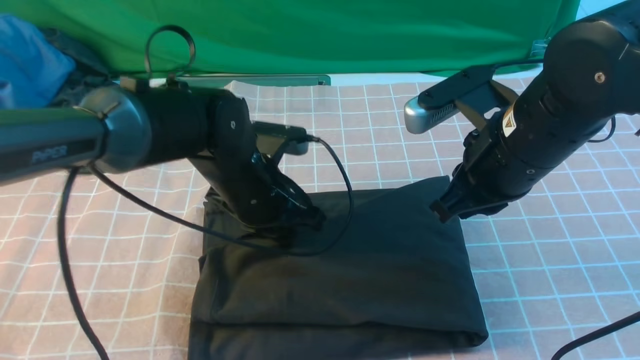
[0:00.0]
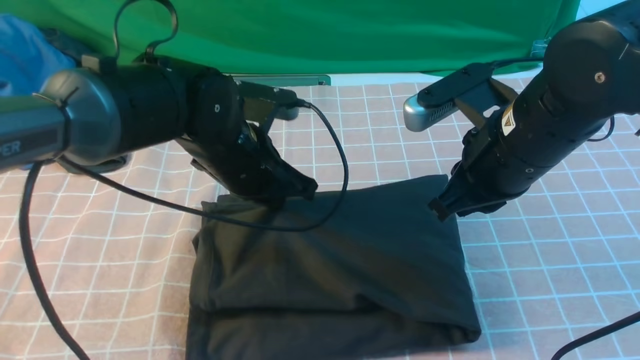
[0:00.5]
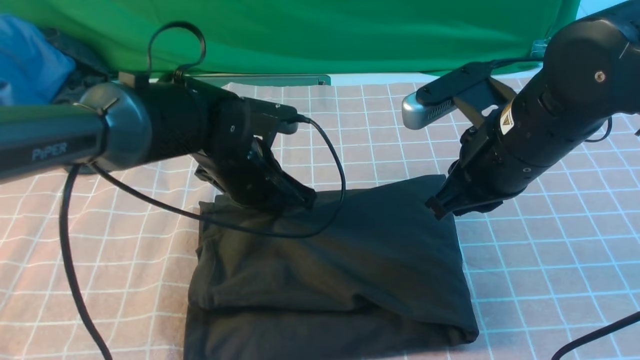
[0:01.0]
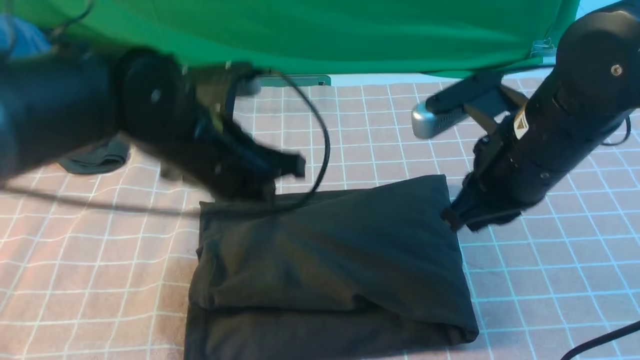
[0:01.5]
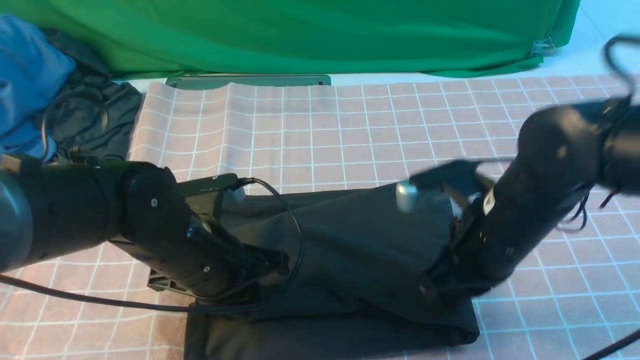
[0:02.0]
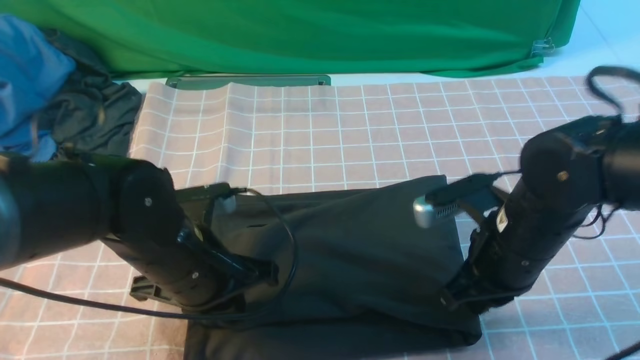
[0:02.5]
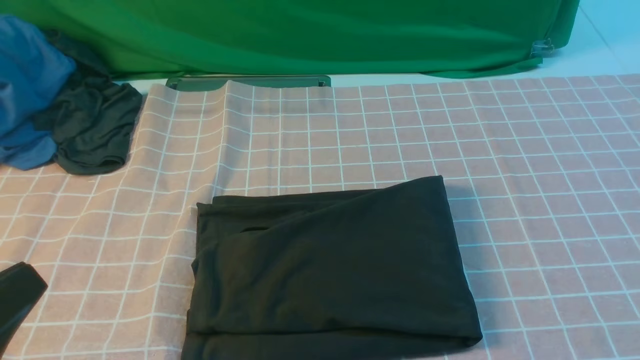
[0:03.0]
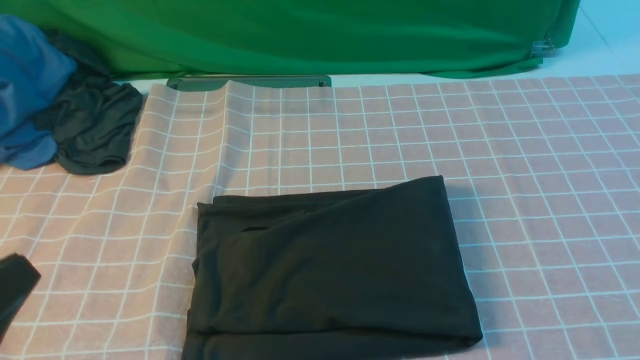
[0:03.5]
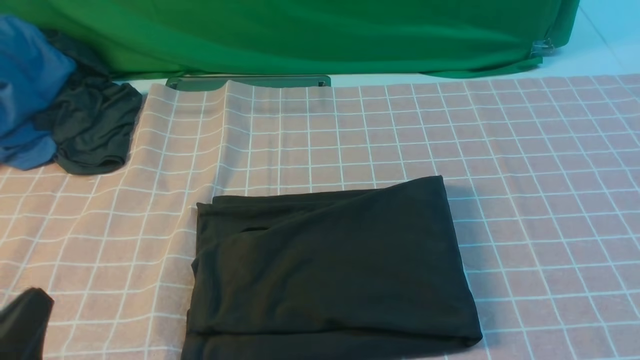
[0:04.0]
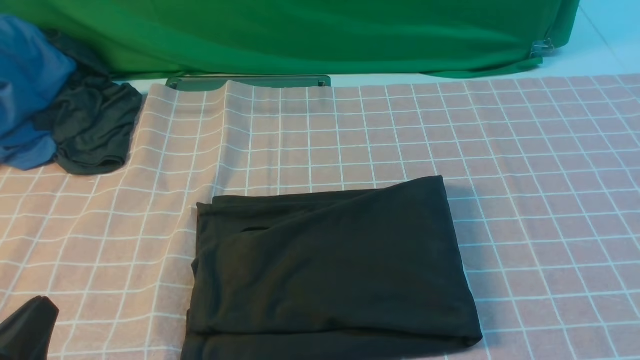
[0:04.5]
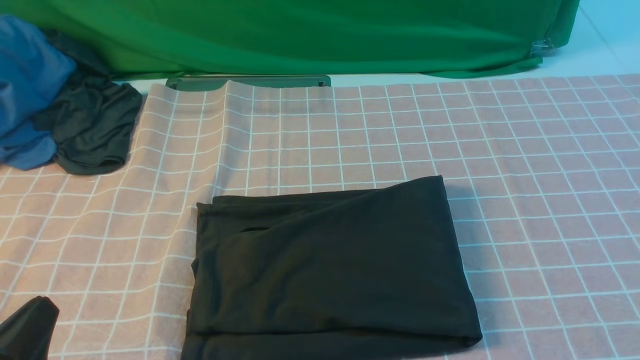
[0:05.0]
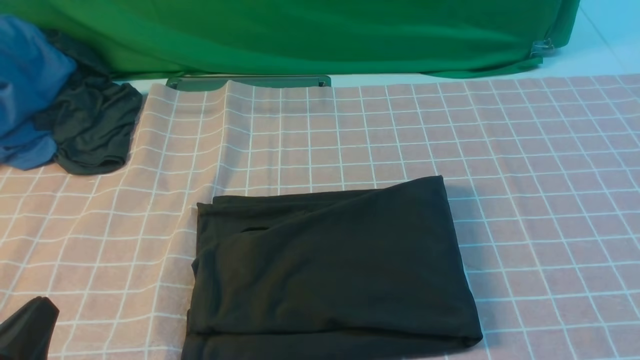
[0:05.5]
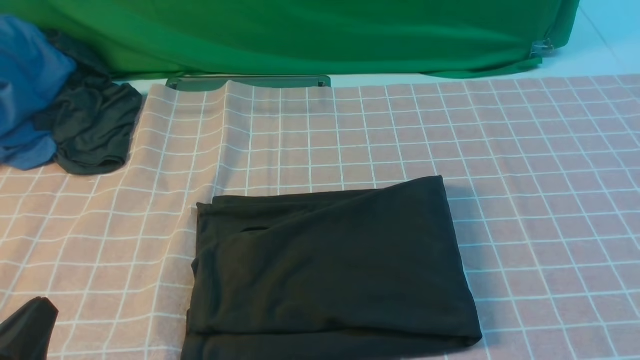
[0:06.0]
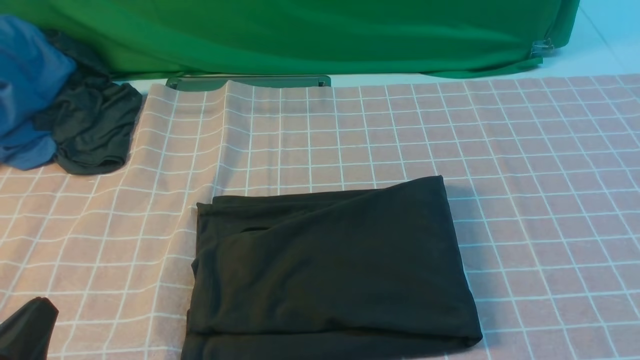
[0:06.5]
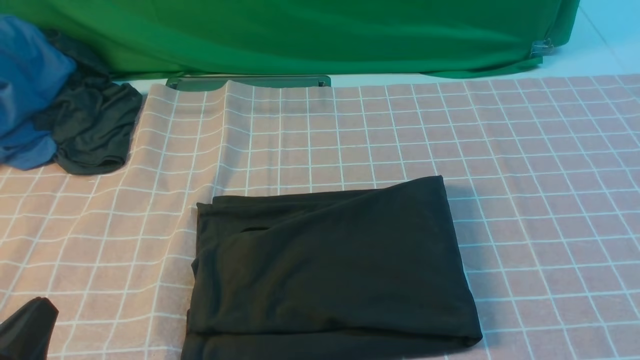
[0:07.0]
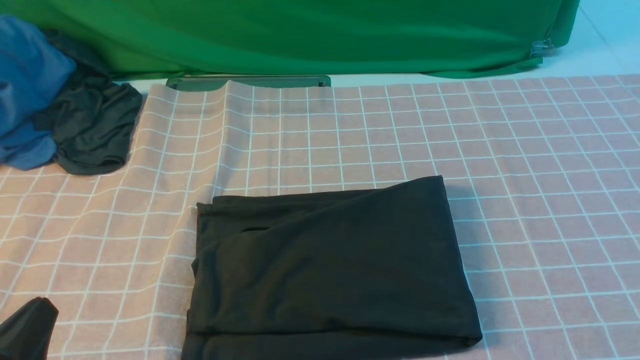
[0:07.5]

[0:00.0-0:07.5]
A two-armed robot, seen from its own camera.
0:00.0 to 0:02.0: The left gripper shifts roughly 10 cm backward, while the right gripper shifts roughly 5 cm downward.
0:02.0 to 0:04.0: The right gripper travels backward, upward and to the right by approximately 35 cm; the left gripper moves backward and to the left, roughly 25 cm.
